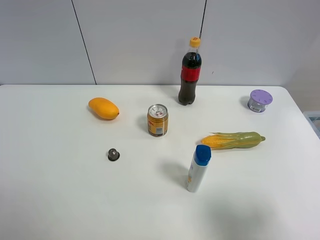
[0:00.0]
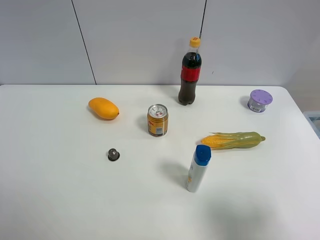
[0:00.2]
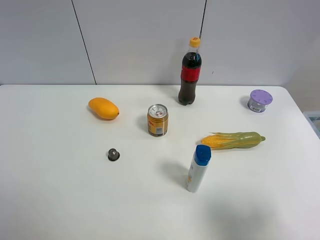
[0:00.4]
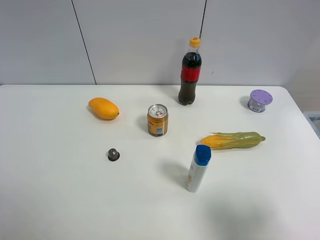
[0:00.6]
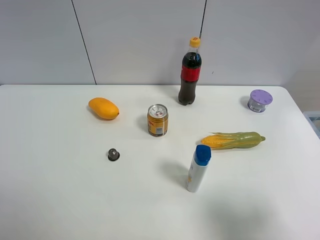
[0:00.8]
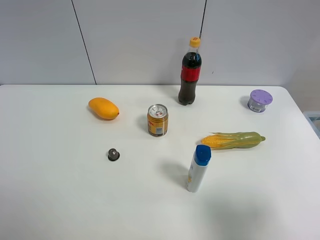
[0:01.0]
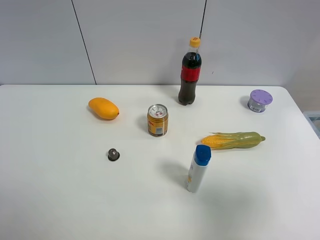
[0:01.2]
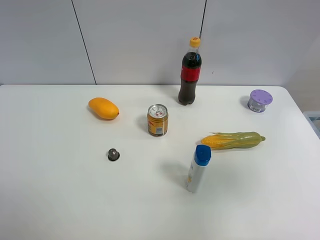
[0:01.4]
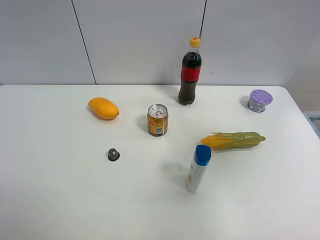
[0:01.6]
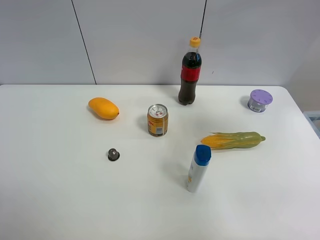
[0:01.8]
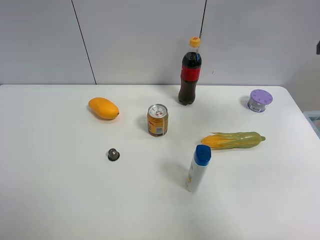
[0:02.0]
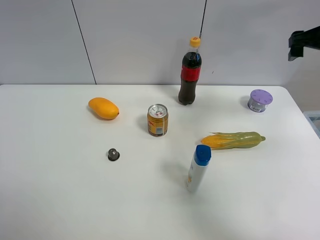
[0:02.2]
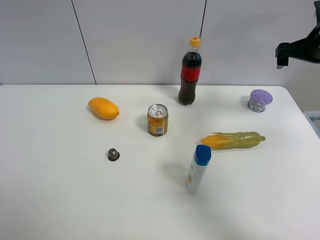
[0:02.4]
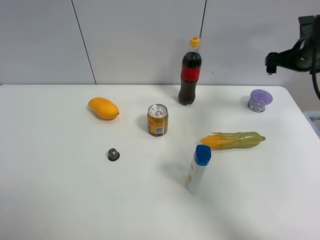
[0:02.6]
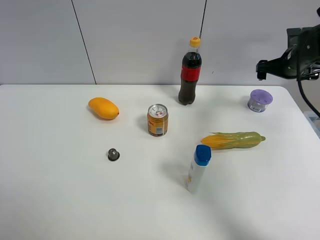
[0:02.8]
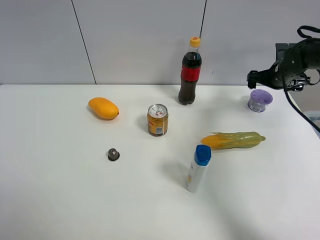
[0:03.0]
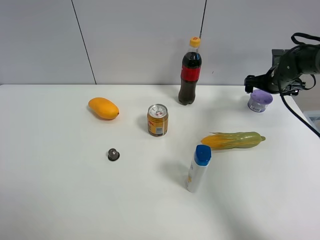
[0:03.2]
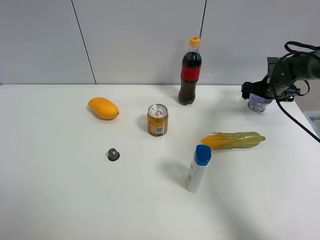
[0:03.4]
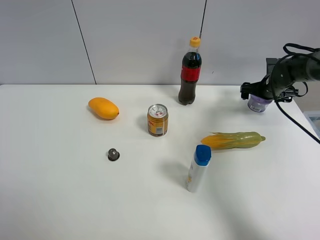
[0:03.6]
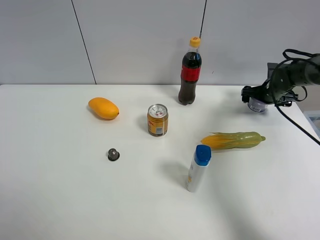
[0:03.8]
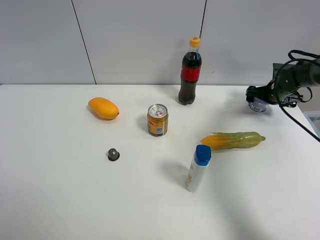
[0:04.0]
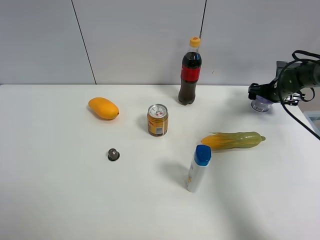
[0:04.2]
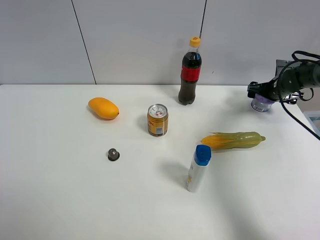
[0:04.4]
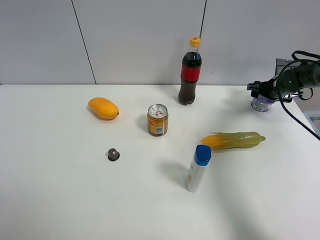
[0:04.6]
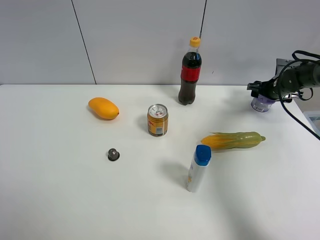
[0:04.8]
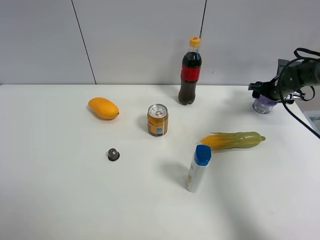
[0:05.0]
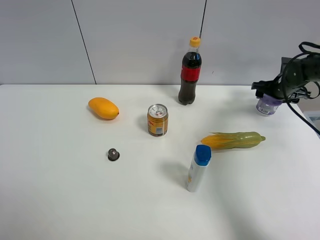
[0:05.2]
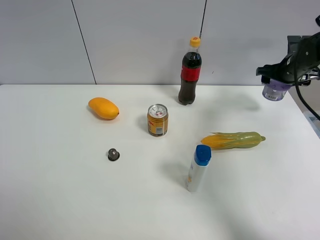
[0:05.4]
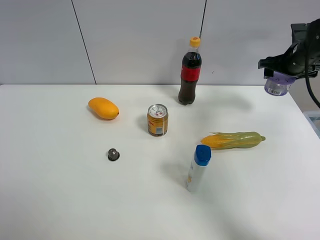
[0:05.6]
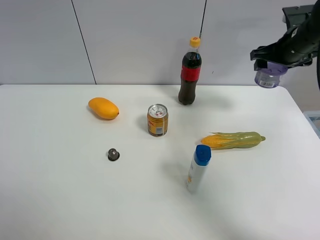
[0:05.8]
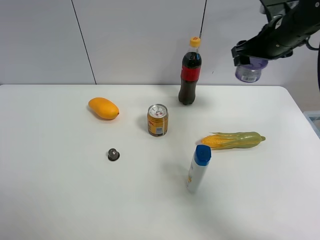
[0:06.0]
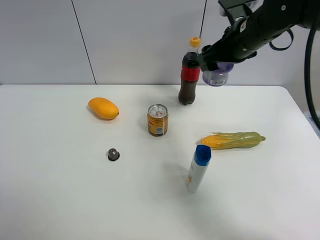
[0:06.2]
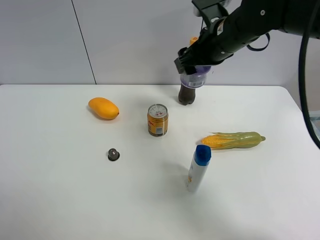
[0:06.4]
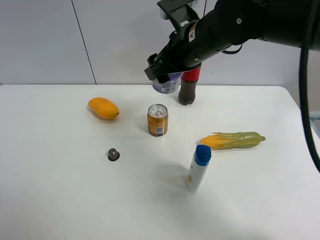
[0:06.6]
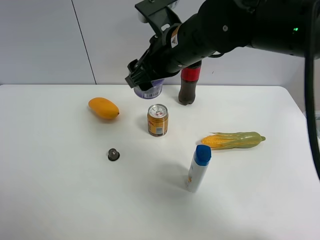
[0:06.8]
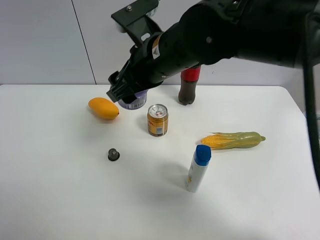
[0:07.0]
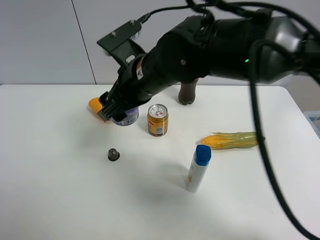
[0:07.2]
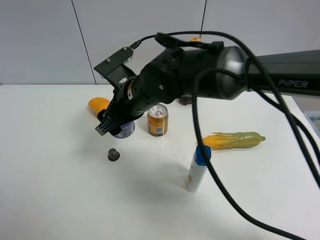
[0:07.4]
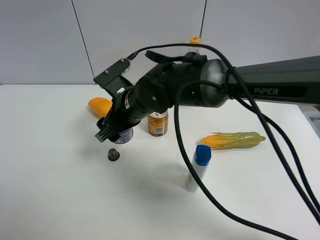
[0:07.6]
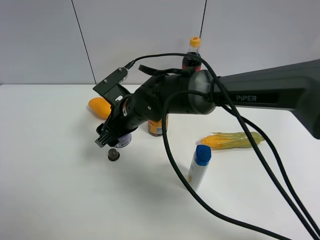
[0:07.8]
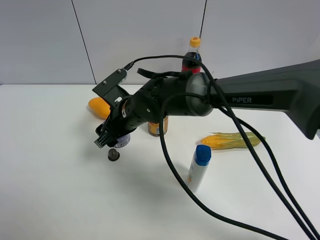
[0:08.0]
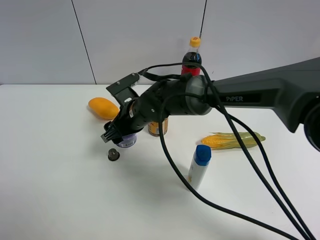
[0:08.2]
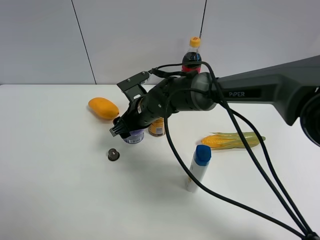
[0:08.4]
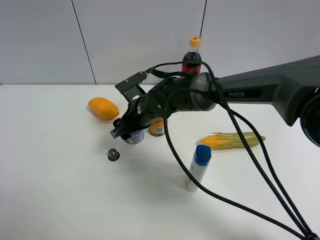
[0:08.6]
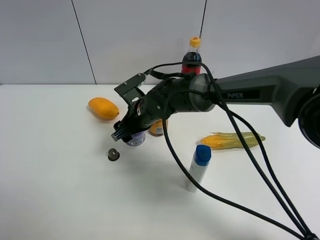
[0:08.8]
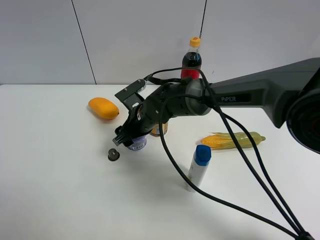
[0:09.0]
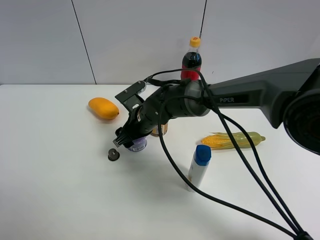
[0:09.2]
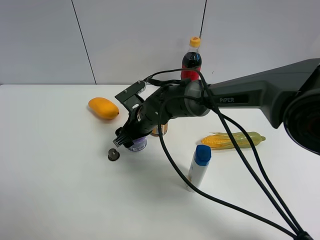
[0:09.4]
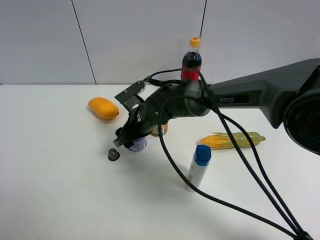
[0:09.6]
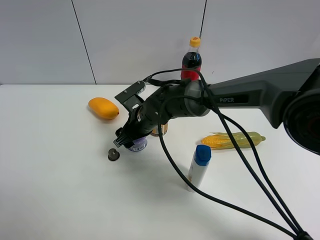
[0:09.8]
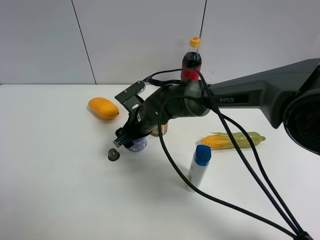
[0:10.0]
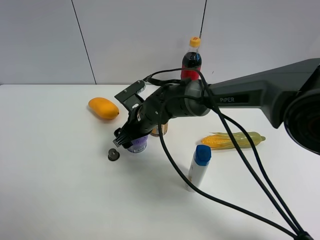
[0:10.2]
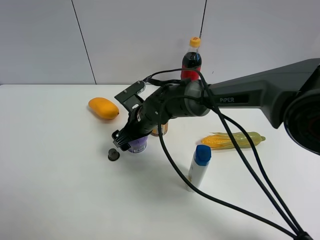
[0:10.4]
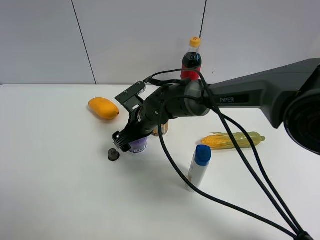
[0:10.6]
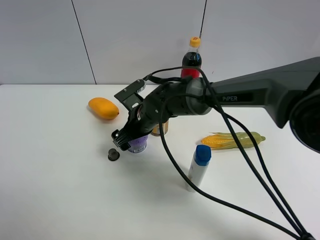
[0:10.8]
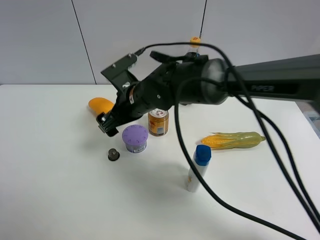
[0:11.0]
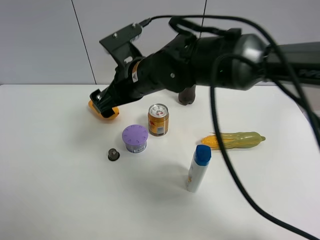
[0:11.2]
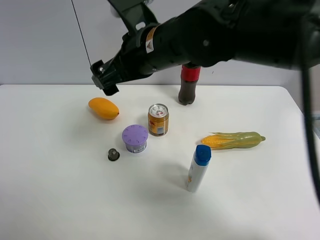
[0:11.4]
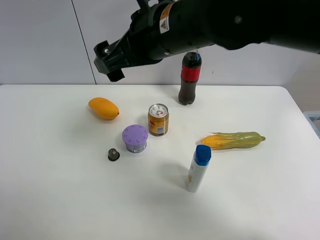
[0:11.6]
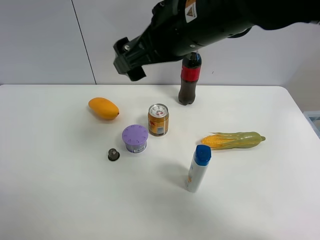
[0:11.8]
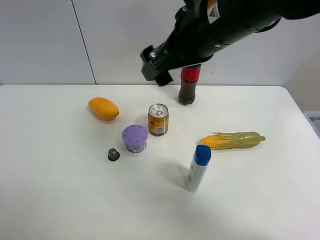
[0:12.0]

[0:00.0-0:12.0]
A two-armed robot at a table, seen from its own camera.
Task of the whole recording: the gripper move the object.
Step, 0:00.0 to 0:04.8: Grasp the Incense box with the right gripper.
Step, 0:05.0 to 0:11.0: Place the Incense box on the table with the right gripper.
0:00.0 to 0:01.6: The right gripper moves upward and forward, about 20 cm.
0:01.6 to 0:03.0: The right gripper moves forward and downward, about 40 cm.
0:03.0 to 0:04.4: The right gripper travels downward by some 5 cm.
0:04.4 to 0:06.0: The right gripper goes some 25 cm upward, to the left and backward, and closes.
0:06.0 to 0:07.6: The right gripper goes roughly 30 cm to the left.
0:07.6 to 0:09.0: The right gripper moves downward, approximately 5 cm.
0:09.0 to 0:10.4: The right gripper opens.
0:10.4 to 0:12.0: The right gripper goes about 25 cm upward.

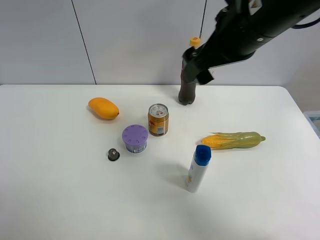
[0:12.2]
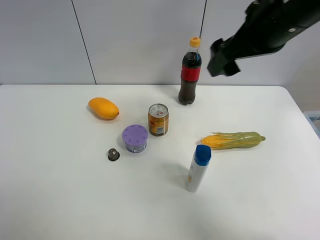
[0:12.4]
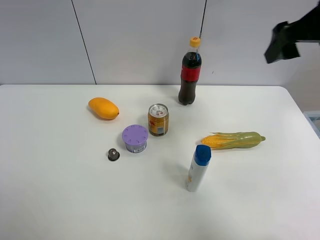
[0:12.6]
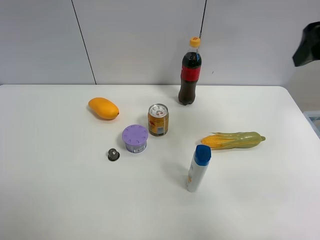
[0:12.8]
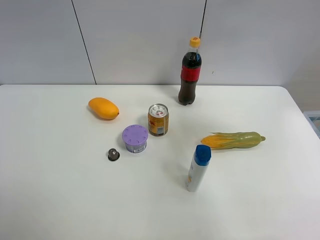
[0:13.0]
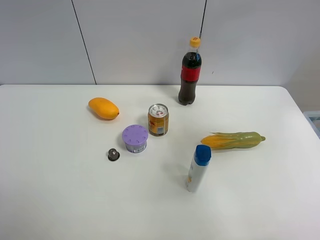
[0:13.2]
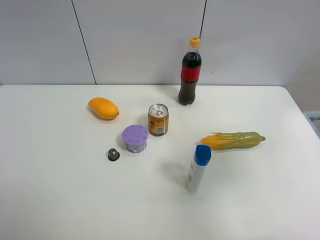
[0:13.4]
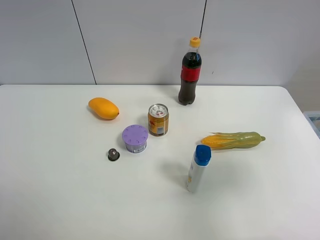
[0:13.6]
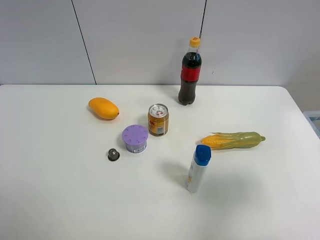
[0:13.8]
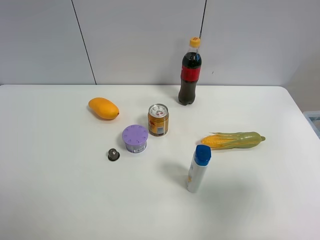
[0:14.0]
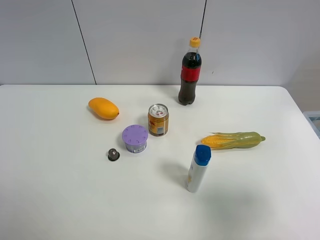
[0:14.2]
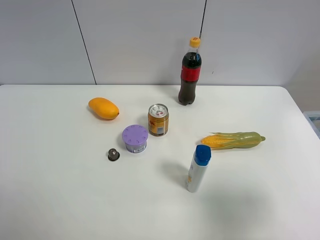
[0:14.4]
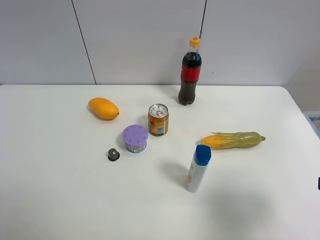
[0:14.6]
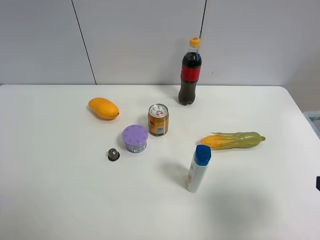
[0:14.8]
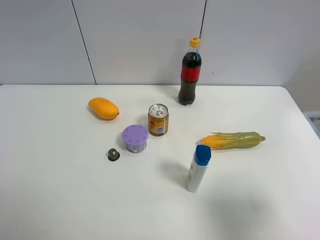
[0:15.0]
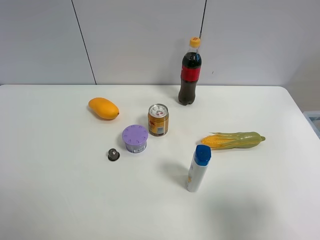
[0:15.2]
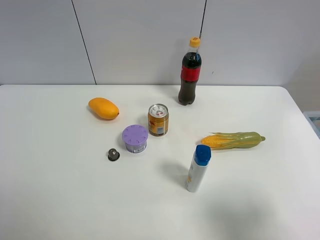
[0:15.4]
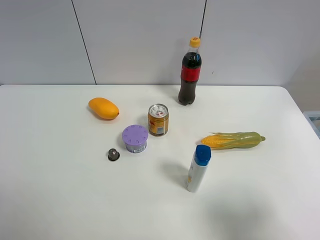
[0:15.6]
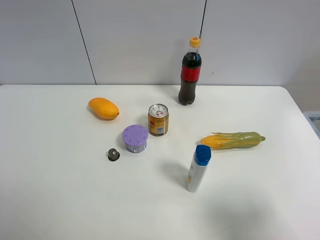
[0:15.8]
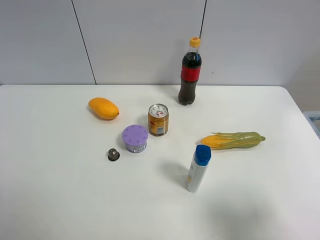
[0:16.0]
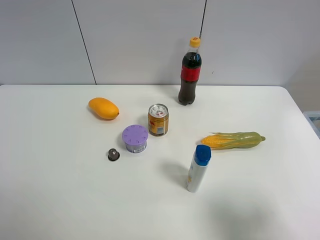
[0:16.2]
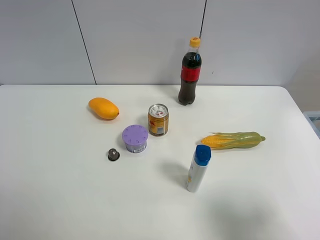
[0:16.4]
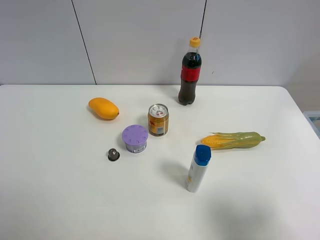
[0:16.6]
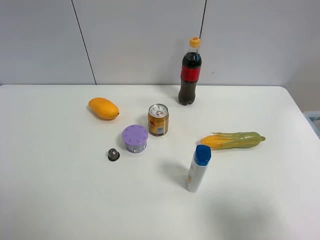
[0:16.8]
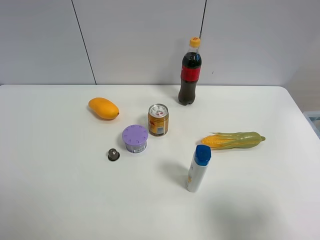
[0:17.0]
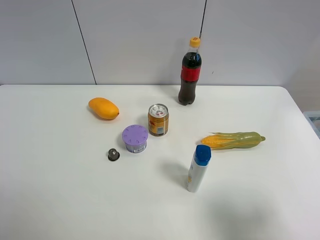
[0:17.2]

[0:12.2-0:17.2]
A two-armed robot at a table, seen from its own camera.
Task of the whole recording: the gripper move the object.
0:12.2 to 0:13.8: The right gripper is displaced backward and to the right by about 25 cm.
0:13.8 to 0:15.6: The right gripper shifts roughly 5 cm backward.

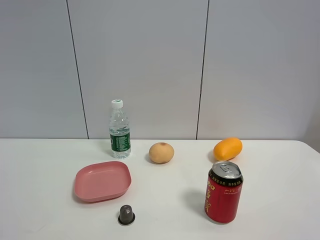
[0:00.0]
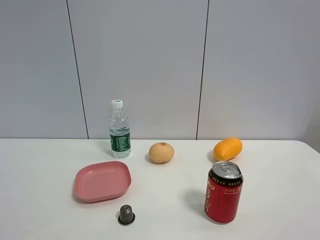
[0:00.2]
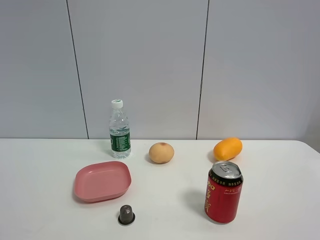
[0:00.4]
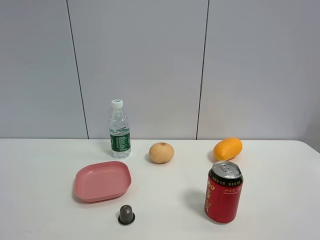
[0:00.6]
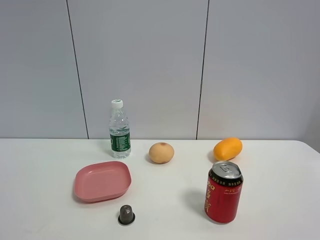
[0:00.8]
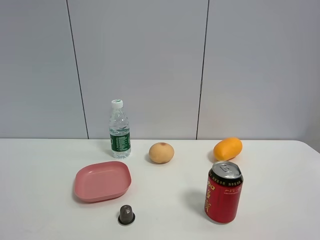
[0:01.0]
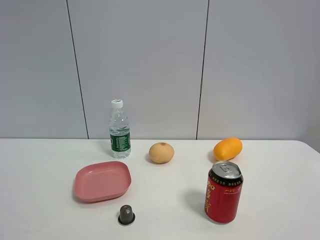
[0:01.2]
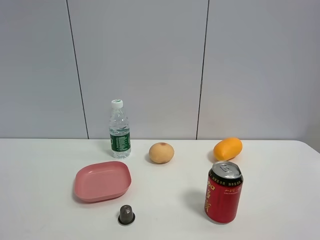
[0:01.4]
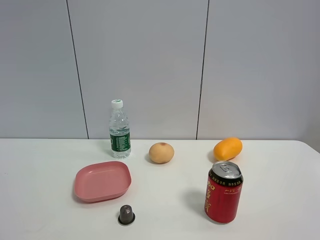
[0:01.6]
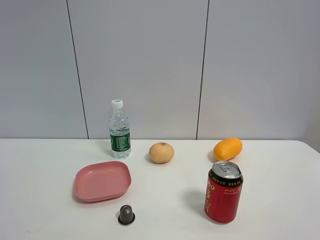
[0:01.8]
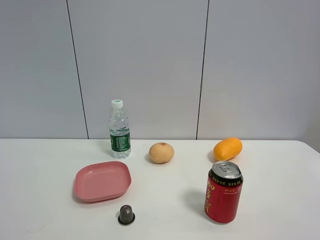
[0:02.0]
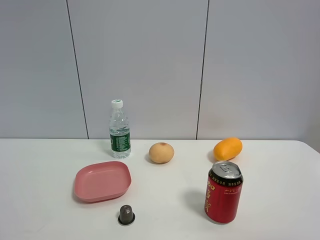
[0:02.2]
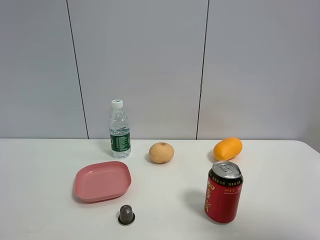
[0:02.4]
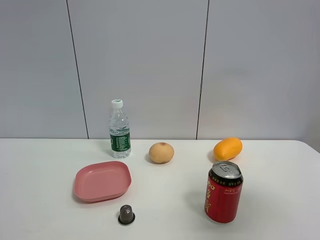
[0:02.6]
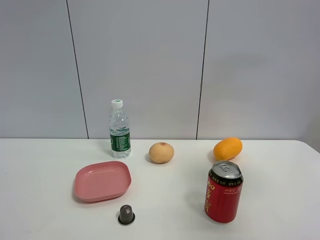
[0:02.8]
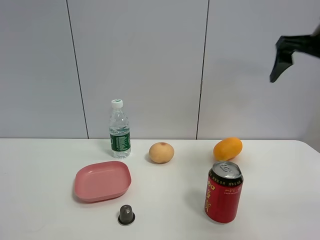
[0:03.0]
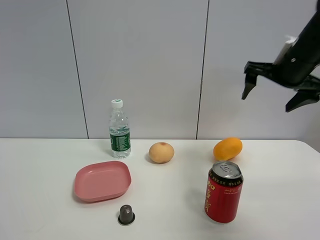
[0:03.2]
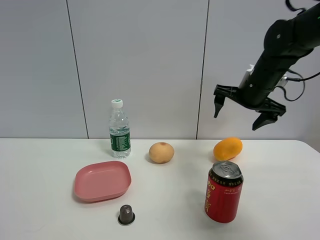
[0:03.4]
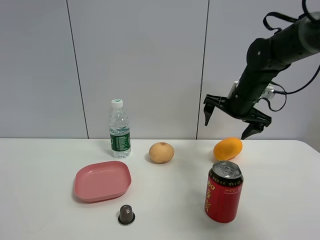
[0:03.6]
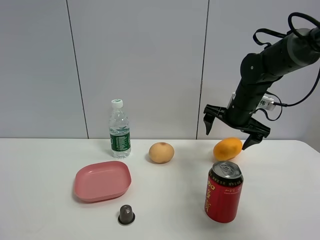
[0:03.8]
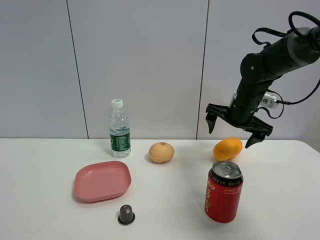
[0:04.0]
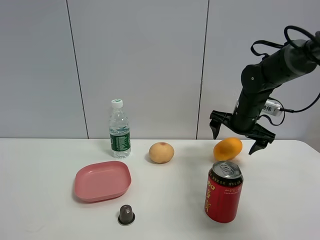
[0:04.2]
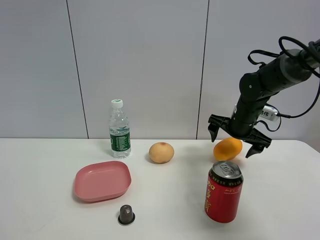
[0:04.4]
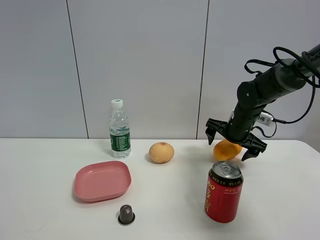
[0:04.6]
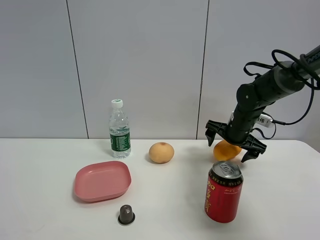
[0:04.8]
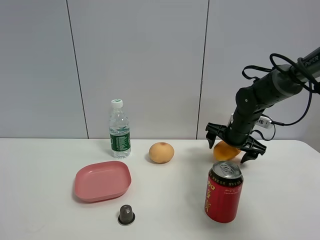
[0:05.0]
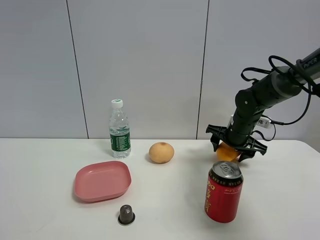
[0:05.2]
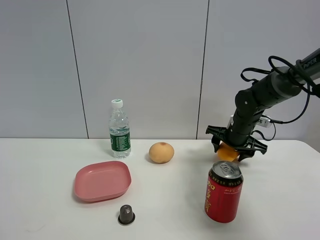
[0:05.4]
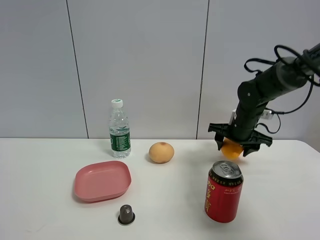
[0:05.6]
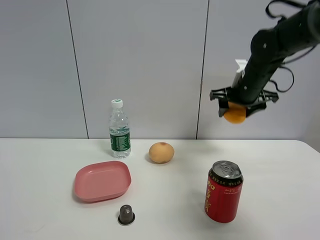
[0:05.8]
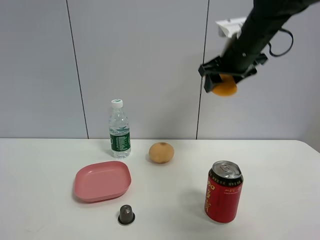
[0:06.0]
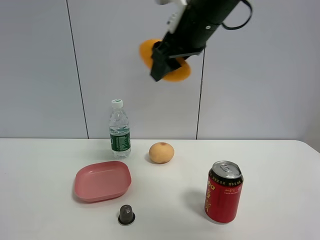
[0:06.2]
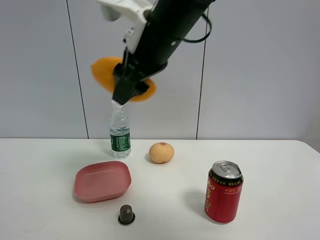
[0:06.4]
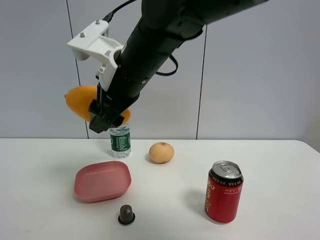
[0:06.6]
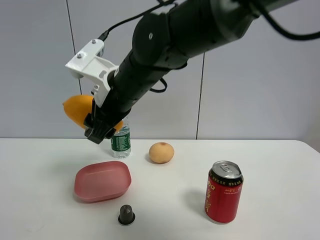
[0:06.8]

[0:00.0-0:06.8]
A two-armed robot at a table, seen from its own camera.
Task of the whole recording: the gripper move the object.
Step, 0:00.0 to 0:05.2: Grasp the mango with the right gripper.
0:00.0 to 0:01.4: Both grippers stay put.
0:01.4 to 0:02.8: The right gripper goes roughly 25 cm forward.
0:02.8 to 0:04.0: The right gripper moves downward, forward and to the left, roughly 30 cm.
0:04.0 to 0:05.4: The right gripper shifts approximately 5 cm downward, and closes.
0:05.4 to 0:06.8: The right gripper heads to the left, backward and upward, covering about 30 cm.
